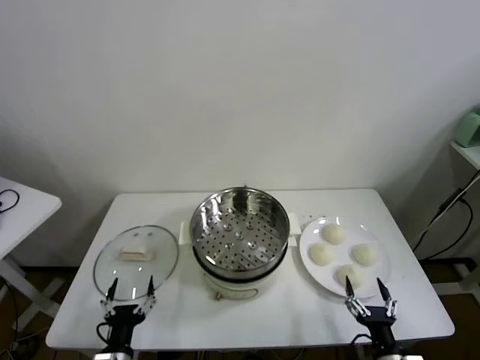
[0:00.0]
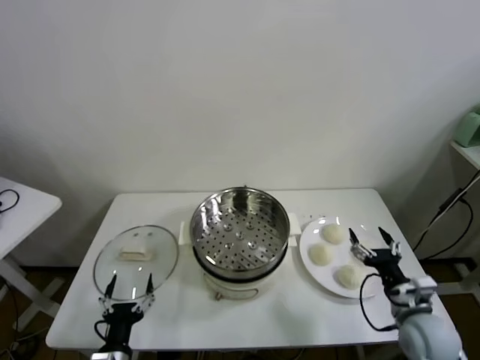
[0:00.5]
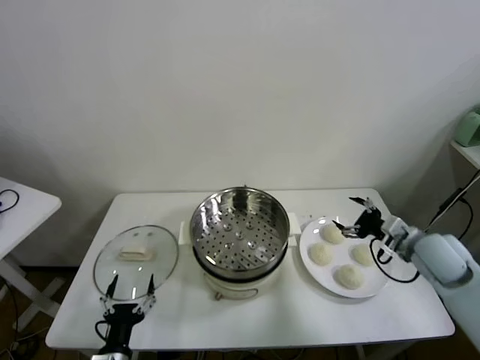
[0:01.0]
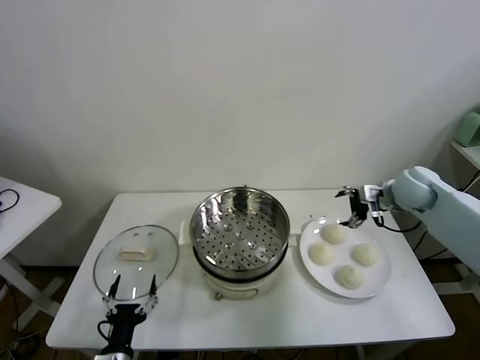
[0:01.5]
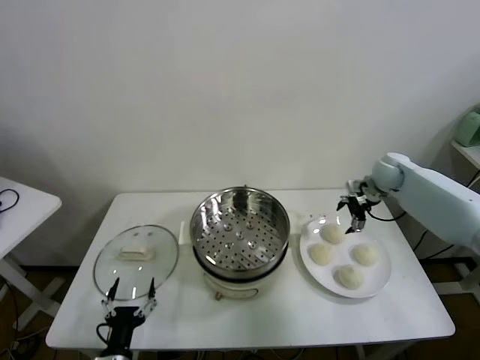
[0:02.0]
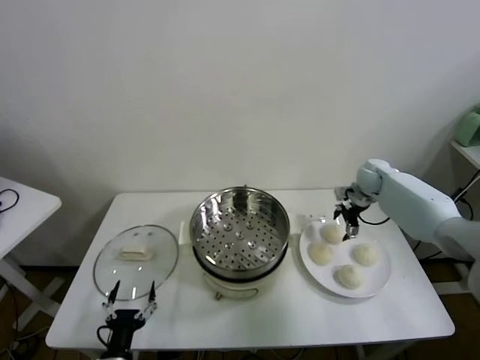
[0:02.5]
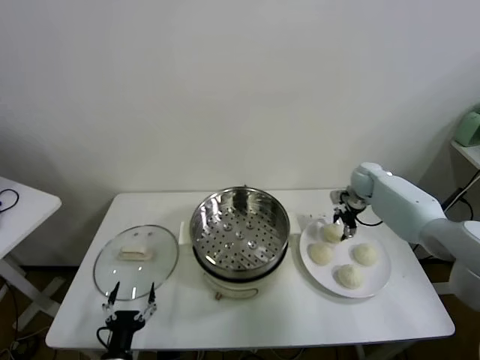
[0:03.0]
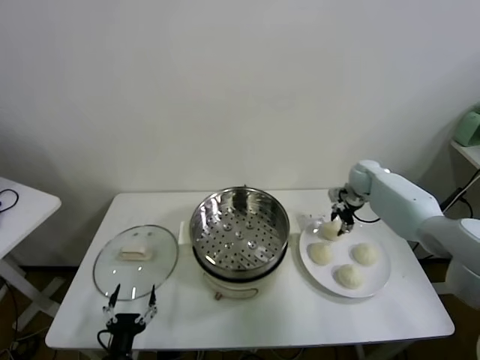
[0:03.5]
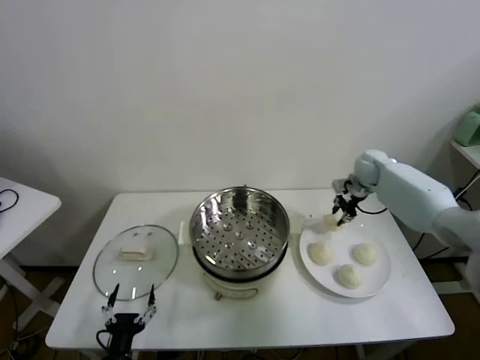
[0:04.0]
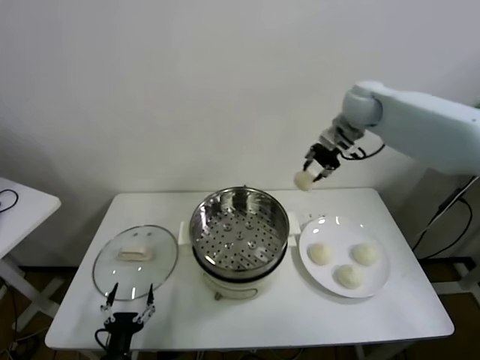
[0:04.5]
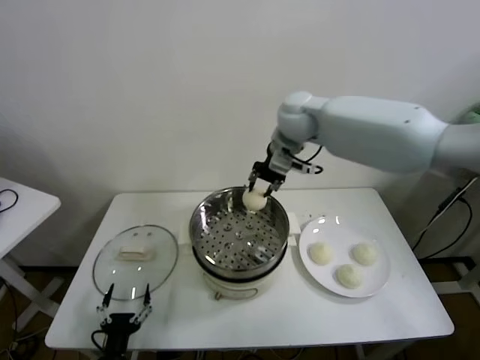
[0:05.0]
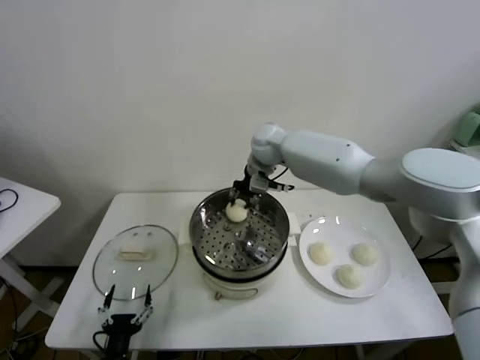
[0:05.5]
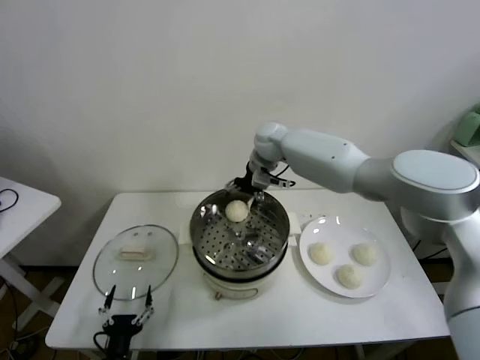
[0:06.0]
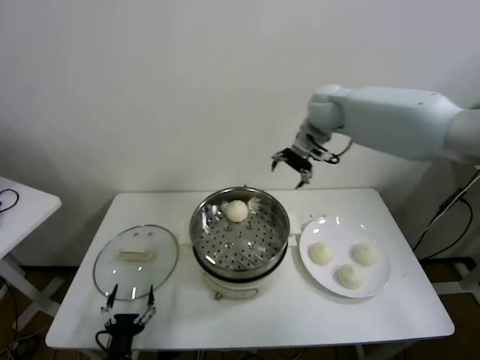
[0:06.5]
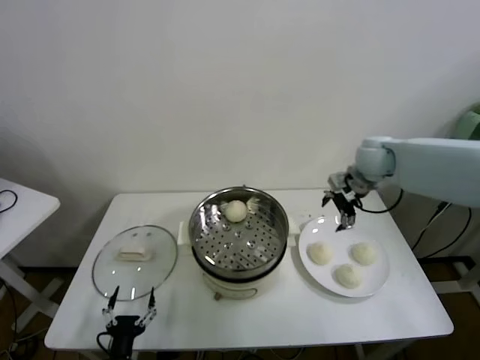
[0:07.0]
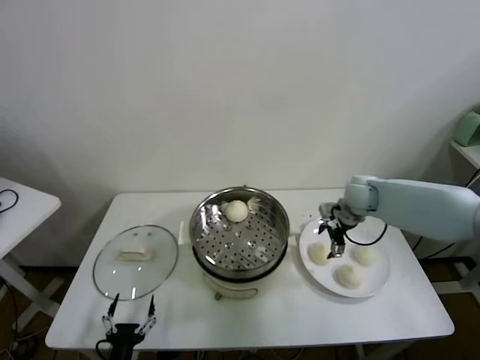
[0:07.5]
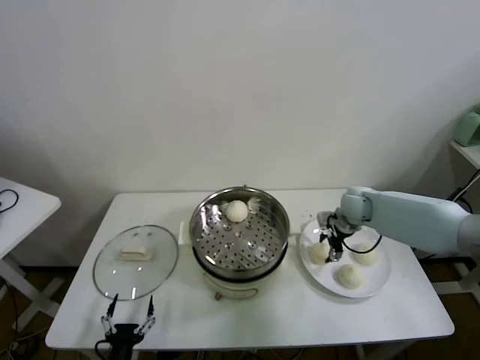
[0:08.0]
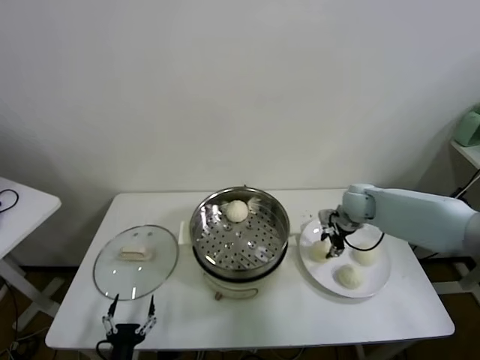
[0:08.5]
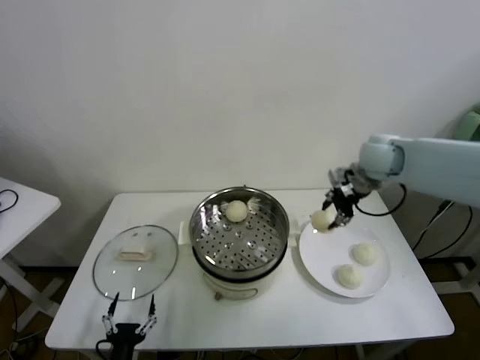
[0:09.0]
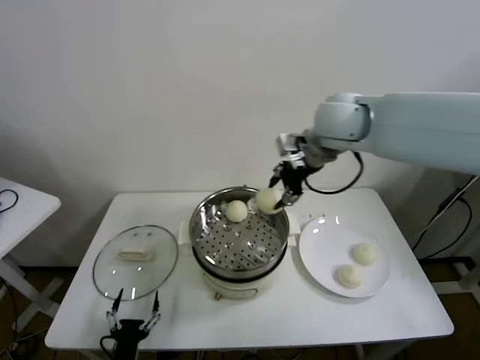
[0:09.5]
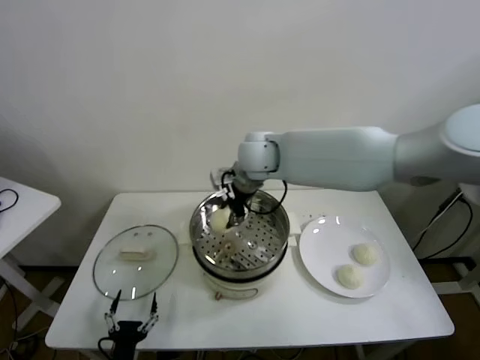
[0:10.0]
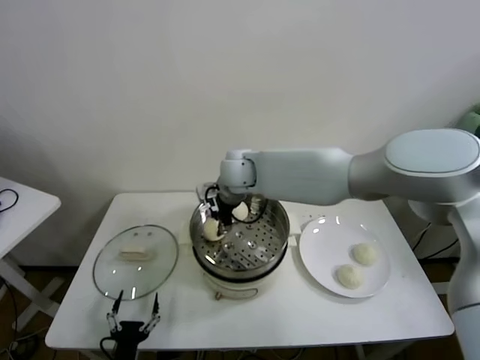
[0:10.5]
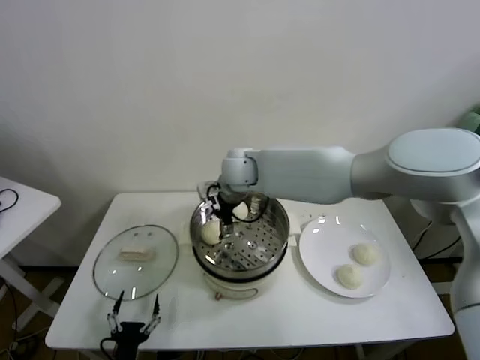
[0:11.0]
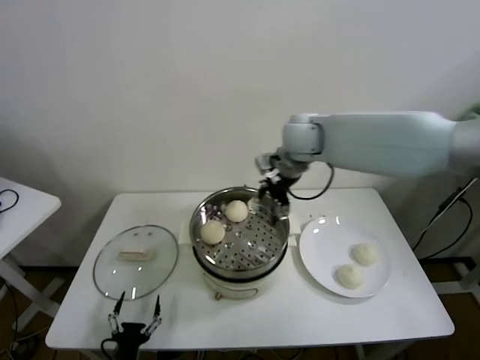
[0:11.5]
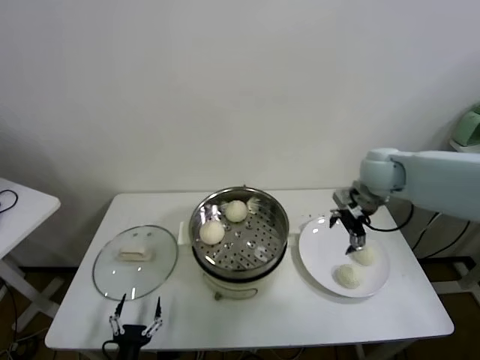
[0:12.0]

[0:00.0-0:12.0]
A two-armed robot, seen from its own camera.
Task of the whole recording: take steamed baozi put them in steamer.
Step, 0:00.0 to 0:03.5: Grasp the baozi in the plate with right gripper.
Step, 0:04.0 to 0:05.5: Place the baozi on the steamer with right gripper.
Step, 0:06.0 to 0:08.0: Grasp the baozi in the plate with right gripper.
Step, 0:08.5 to 0:10.5: Place the baozi on the steamer with right gripper.
0:02.0 to 0:04.0: The right gripper closes its fingers.
0:04.0 to 0:06.0: The right gripper shifts about 25 cm to the left, and opens up.
0:06.0 to 0:08.0: The right gripper moves to the right, downward and backward, roughly 30 cm, and closes.
0:08.0 to 0:10.0: The right gripper goes about 35 cm to the left and upward.
0:10.0 to 0:12.0: The right gripper travels to the right by some 30 cm, and opens.

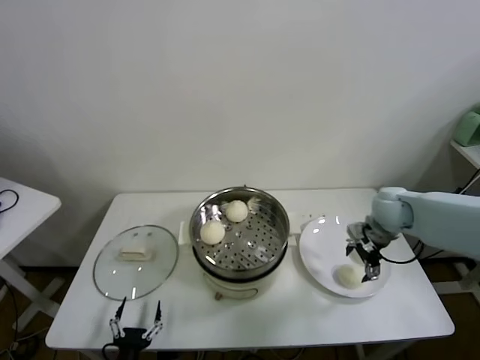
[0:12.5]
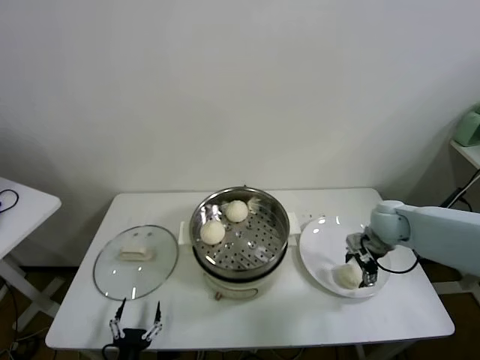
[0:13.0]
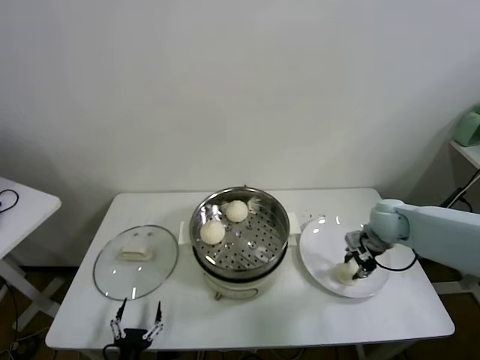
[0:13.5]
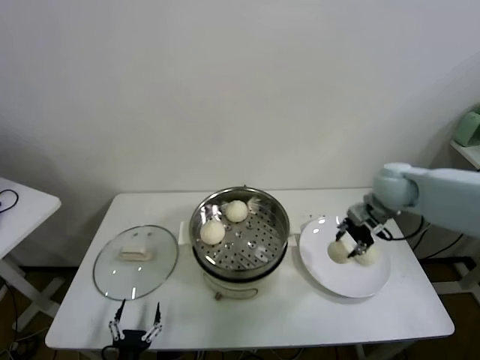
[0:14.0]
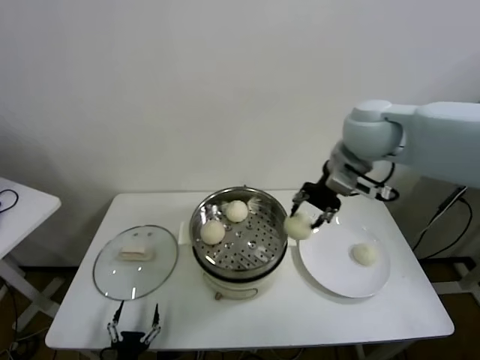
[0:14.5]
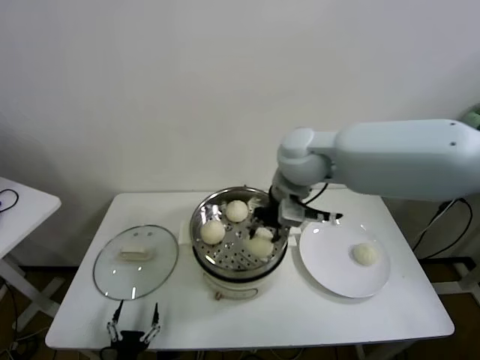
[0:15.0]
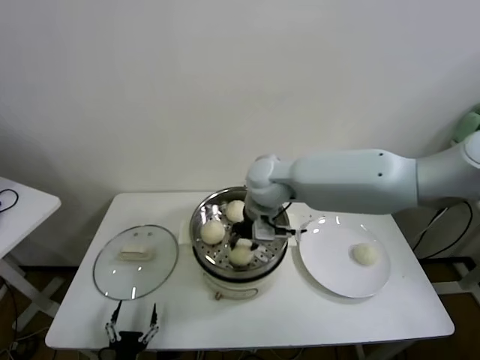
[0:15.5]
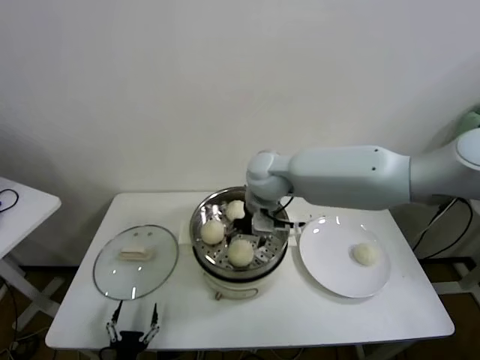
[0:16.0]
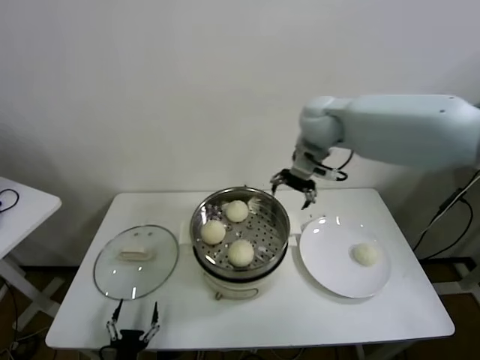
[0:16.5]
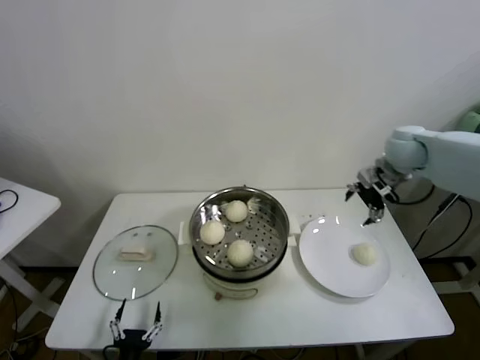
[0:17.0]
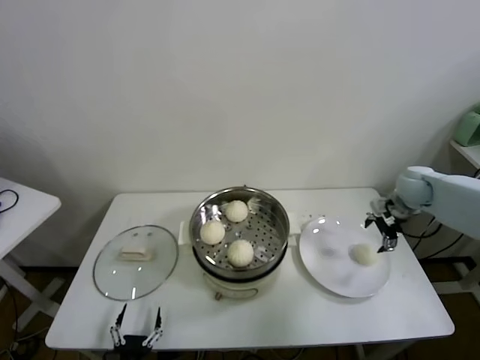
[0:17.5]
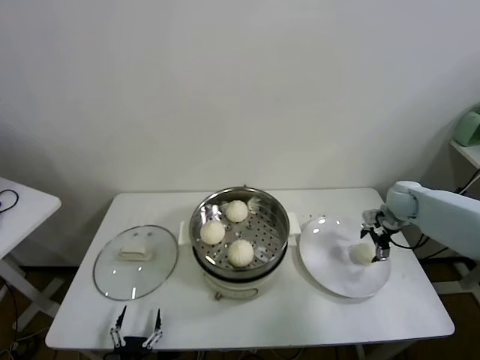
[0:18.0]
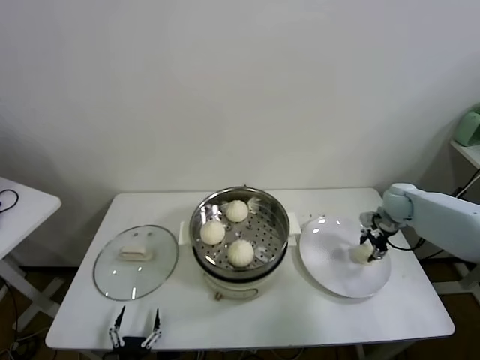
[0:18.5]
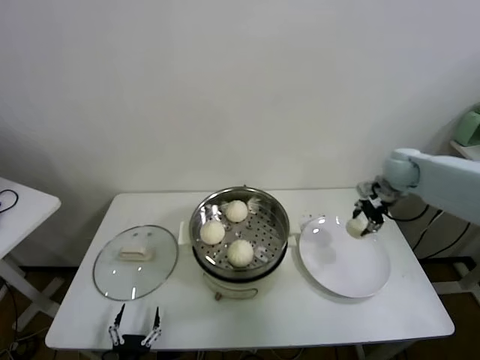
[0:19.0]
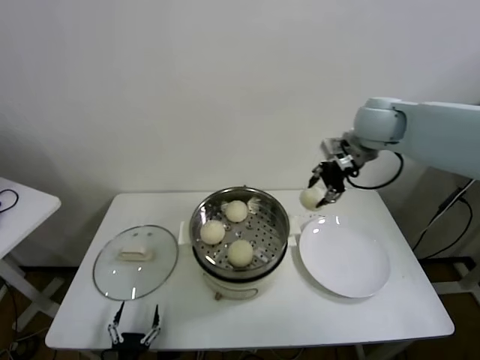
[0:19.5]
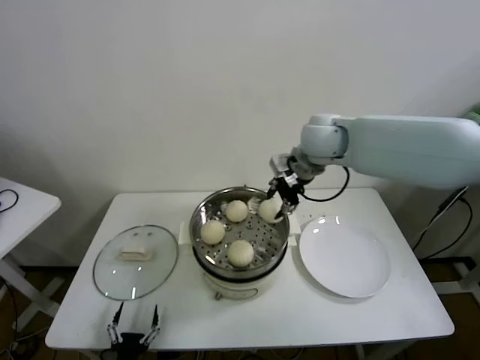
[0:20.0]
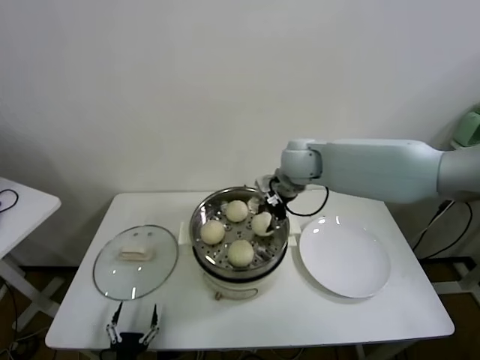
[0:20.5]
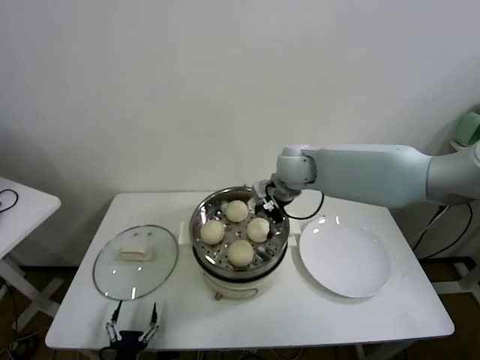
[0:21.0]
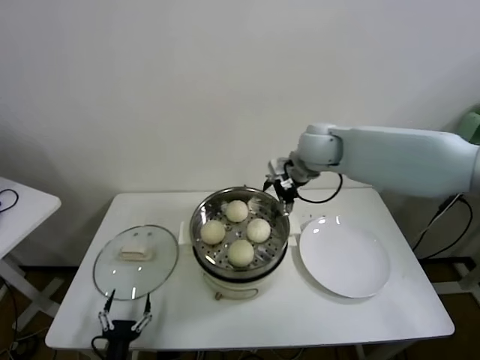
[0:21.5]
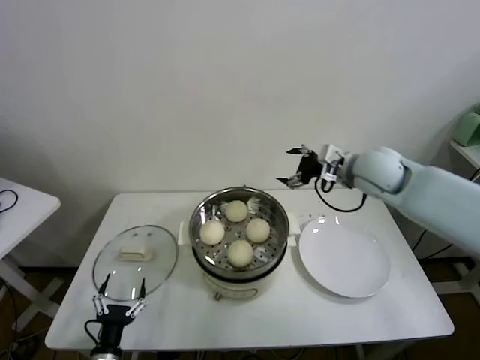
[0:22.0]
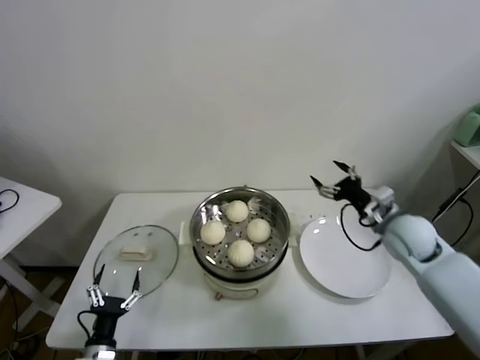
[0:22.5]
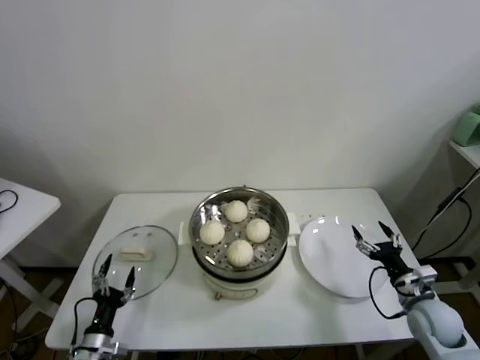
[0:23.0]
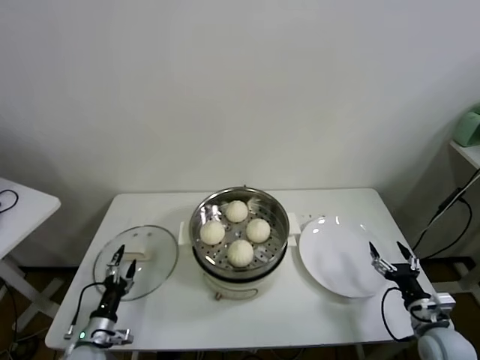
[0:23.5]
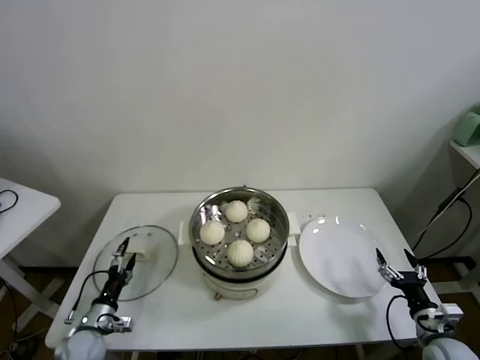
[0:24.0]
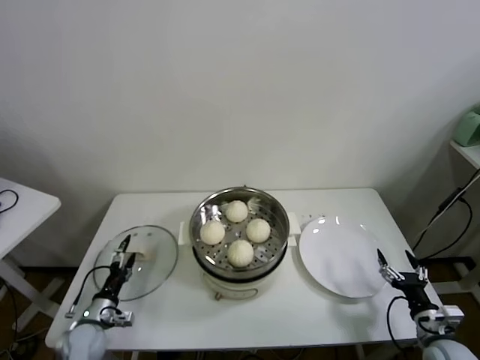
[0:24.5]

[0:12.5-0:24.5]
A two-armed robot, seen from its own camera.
Task of the whole recording: take steamed baozi put them in steamer.
Step, 0:13.5 to 0:15.5: Place the baozi on the steamer with right gripper.
Step, 0:16.0 to 0:18.0: Grasp the baozi in the plate with right gripper.
Step, 0:18.5 to 0:21.0: Place the baozi on the steamer with right gripper.
0:12.5 to 0:14.5: The right gripper shifts about 25 cm upward and to the left, and closes up.
0:14.5 to 0:16.5: The right gripper is displaced forward by roughly 10 cm, goes to the left and returns, about 15 cm each way, and opens up.
0:16.5 to 0:18.5: The right gripper moves to the right and downward, approximately 35 cm, and closes up.
0:18.5 to 0:20.5: The right gripper is displaced to the left and upward by roughly 35 cm.
0:20.5 to 0:22.5: The left gripper moves forward and to the left, about 10 cm. Meanwhile the right gripper is displaced to the right, downward and backward by about 30 cm, and opens its fingers.
0:22.5 to 0:24.5: The left gripper goes roughly 10 cm forward and to the left. The right gripper shifts roughly 30 cm backward, downward and to the right.

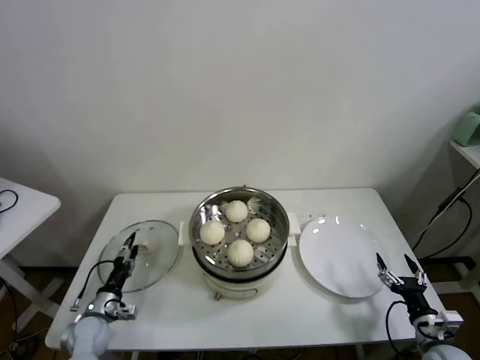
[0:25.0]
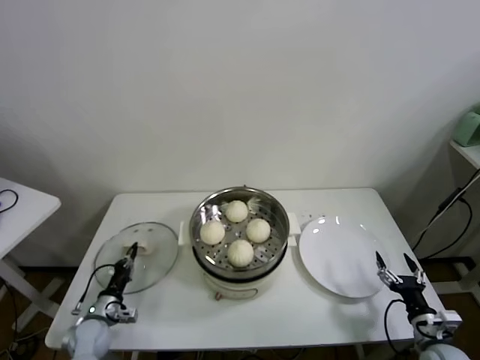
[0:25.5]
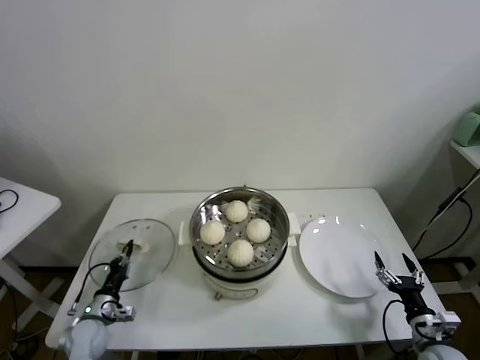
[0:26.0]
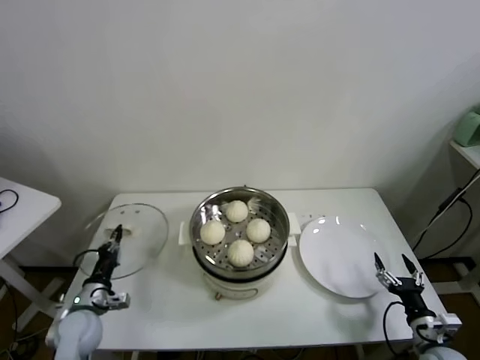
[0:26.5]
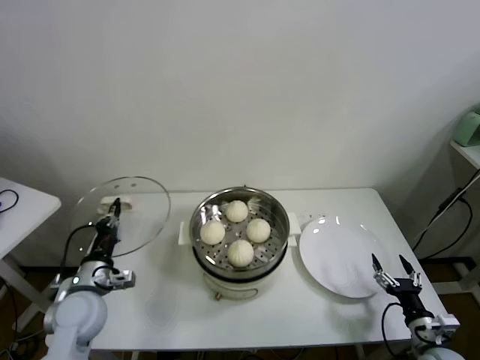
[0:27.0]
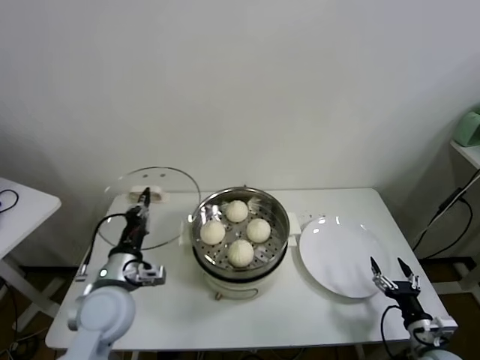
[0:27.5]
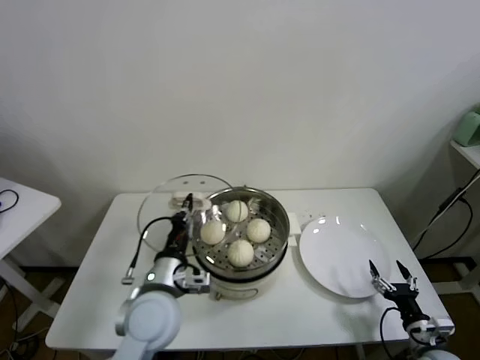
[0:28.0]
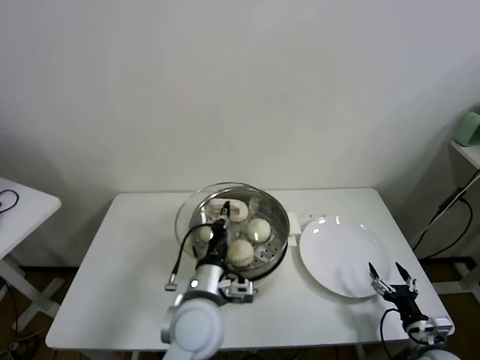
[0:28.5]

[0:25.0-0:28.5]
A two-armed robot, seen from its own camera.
Task of the whole recording: take steamed baozi put them in steamer.
0:25.0 to 0:27.0: The left gripper shifts roughly 15 cm upward, and closes.
0:27.0 to 0:28.5: The left gripper goes roughly 25 cm to the right.
